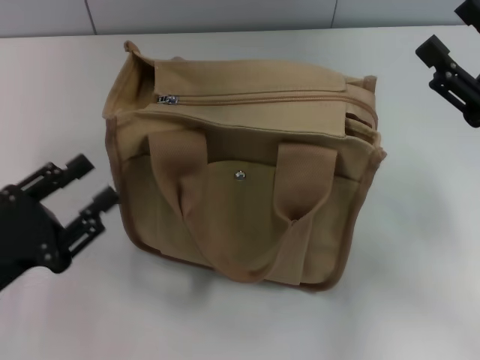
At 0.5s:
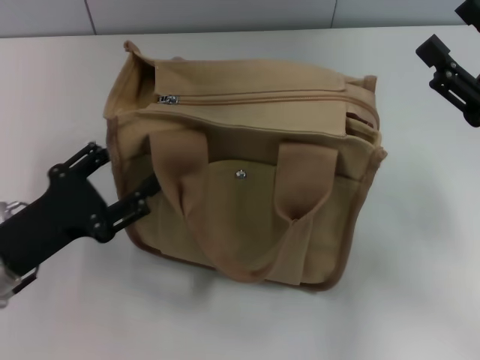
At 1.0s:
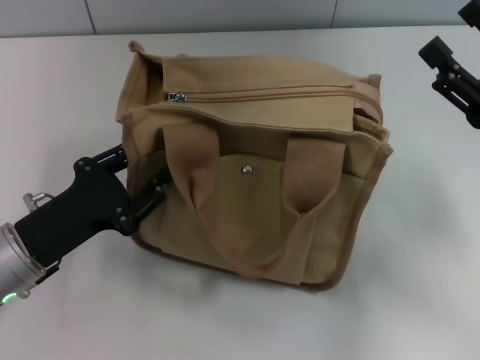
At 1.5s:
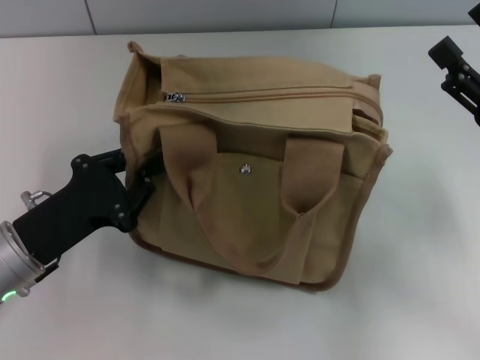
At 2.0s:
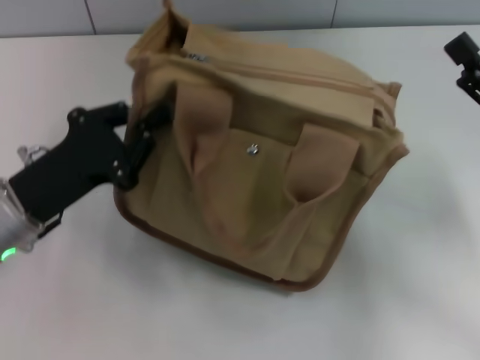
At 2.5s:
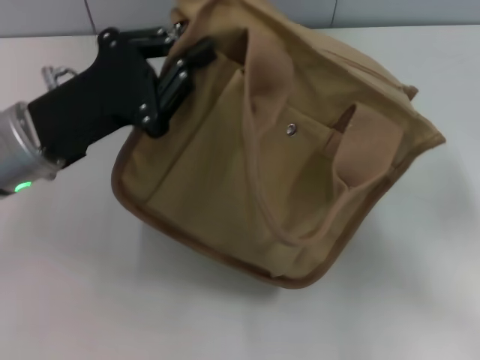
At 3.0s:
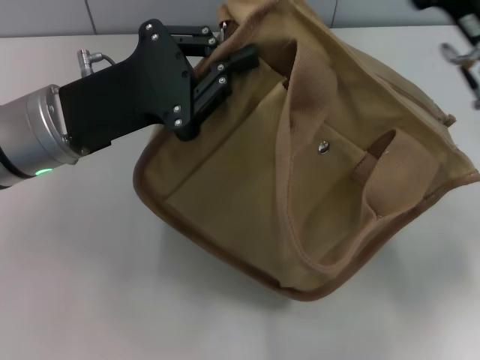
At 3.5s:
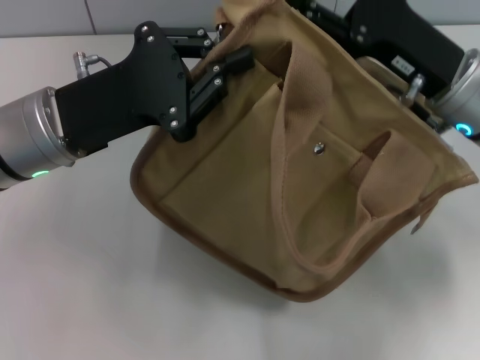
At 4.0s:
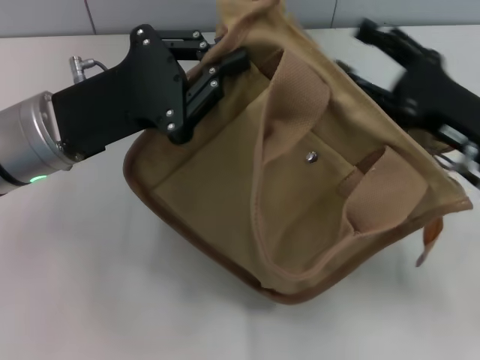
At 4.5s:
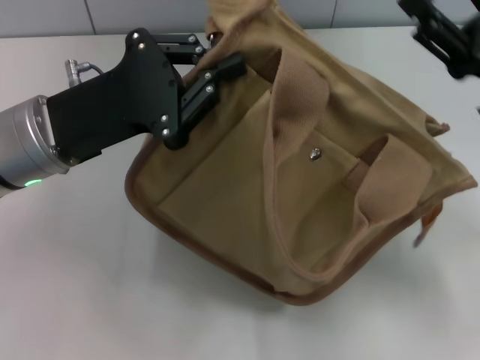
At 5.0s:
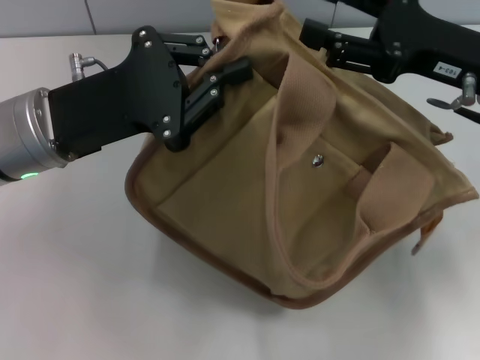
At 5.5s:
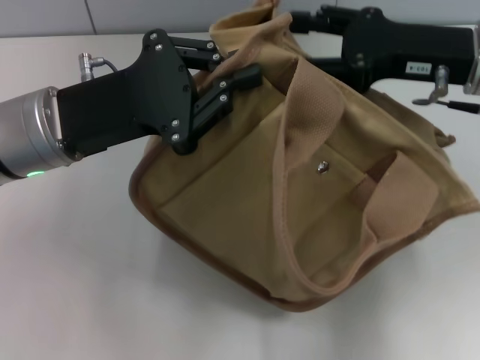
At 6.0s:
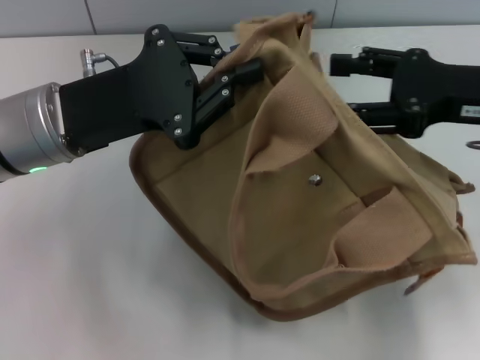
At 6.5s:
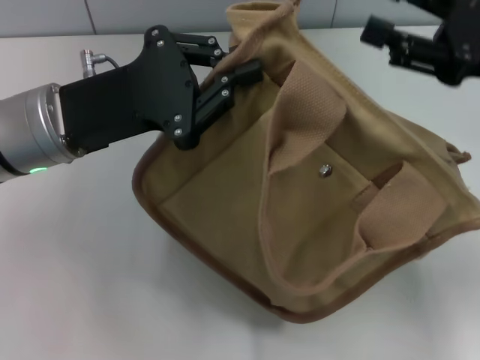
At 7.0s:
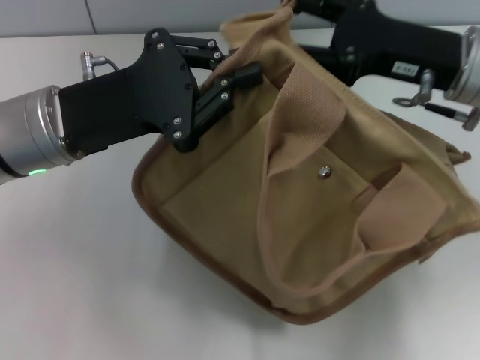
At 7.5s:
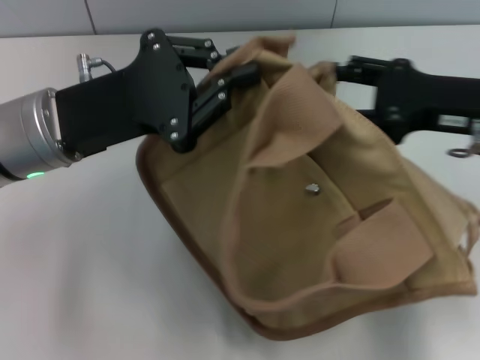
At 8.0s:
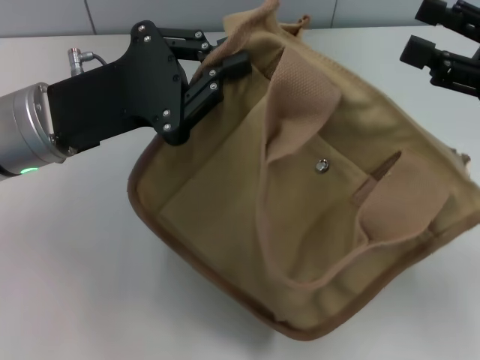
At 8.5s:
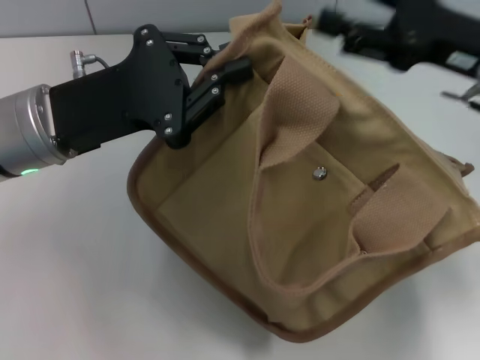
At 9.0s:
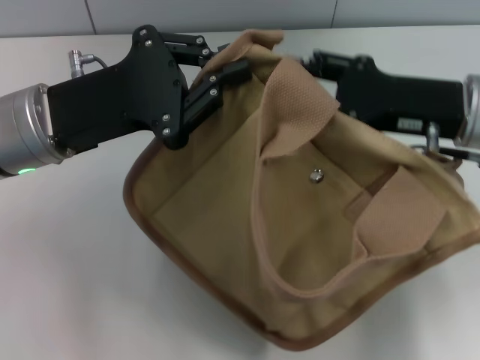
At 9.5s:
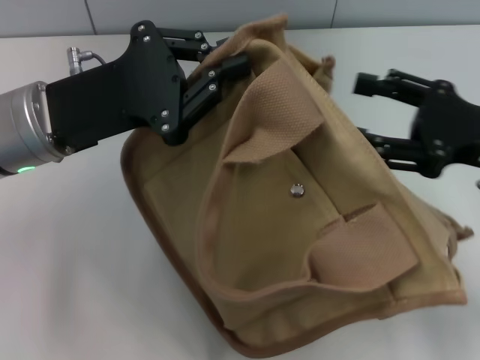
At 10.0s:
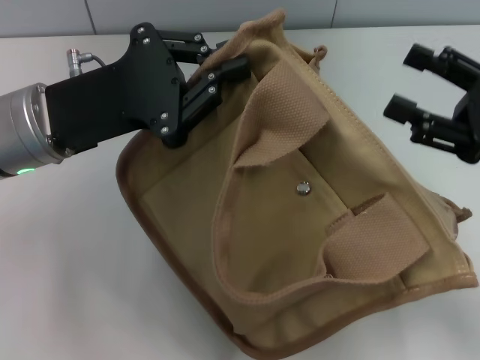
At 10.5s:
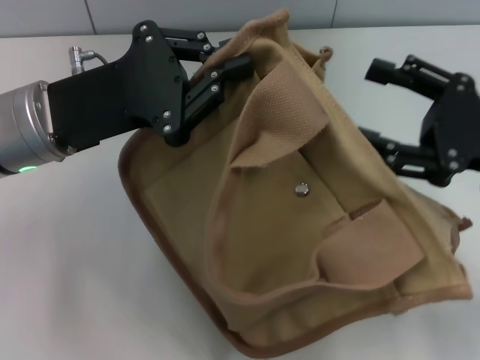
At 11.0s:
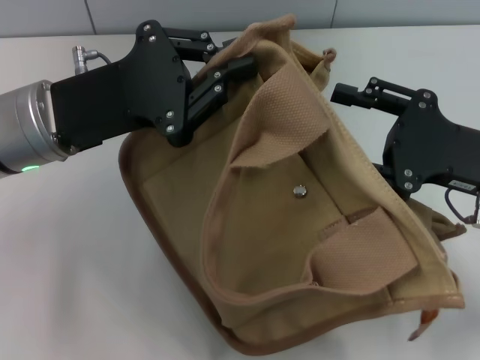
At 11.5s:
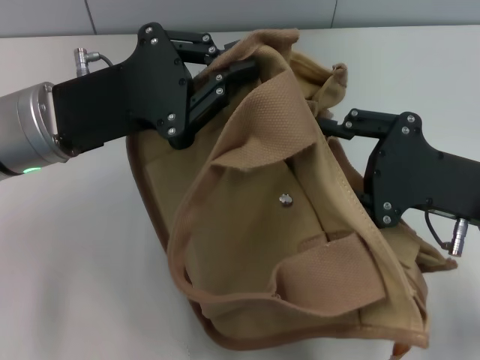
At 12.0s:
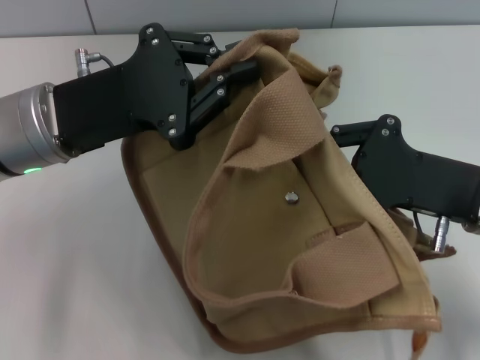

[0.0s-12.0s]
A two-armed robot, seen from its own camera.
0.0s to 2.0s: The left gripper heads forward and to the right, covering some 10 cm, and opens, then closes once more.
2.0s to 4.0s: The right gripper shifts roughly 5 cm to the left. Meanwhile the left gripper moves upward and forward, approximately 10 cm.
4.0s to 6.0s: The right gripper heads upward, covering about 10 cm.
6.0s to 8.0s: The right gripper changes place by roughly 5 cm.
8.0s to 10.0s: The right gripper reaches roughly 10 cm to the left, then returns.
10.0s to 12.0s: The right gripper travels to the left by about 5 cm, and closes its fingers.

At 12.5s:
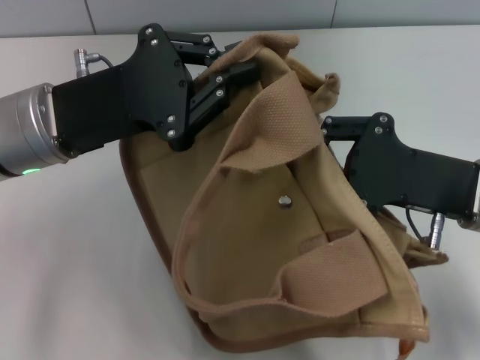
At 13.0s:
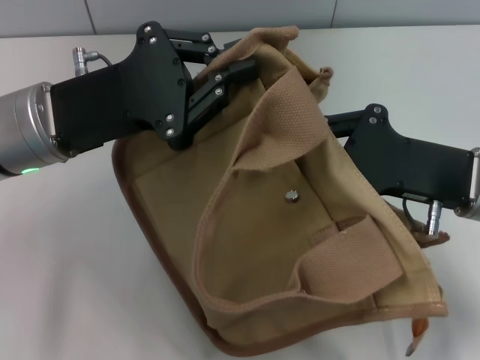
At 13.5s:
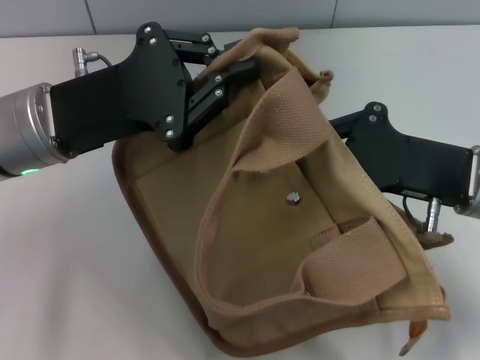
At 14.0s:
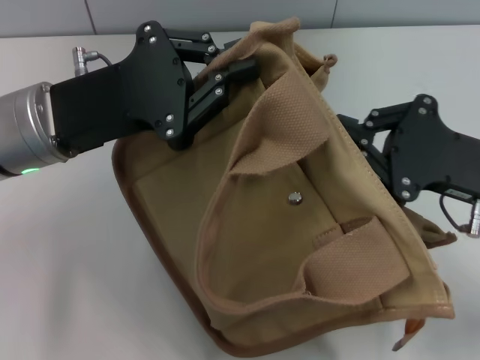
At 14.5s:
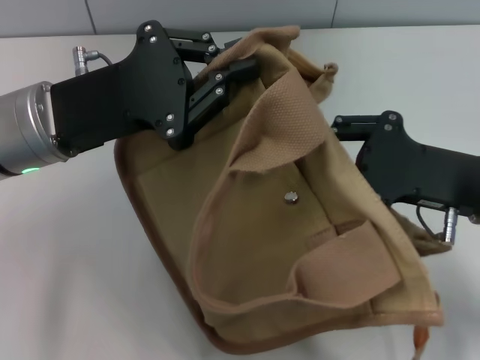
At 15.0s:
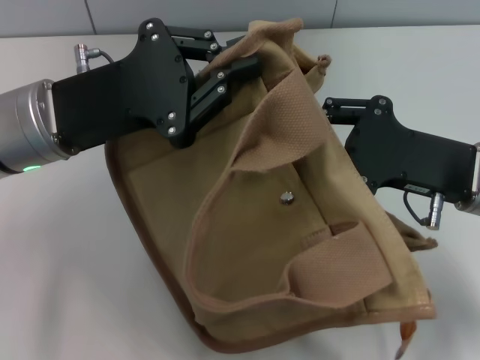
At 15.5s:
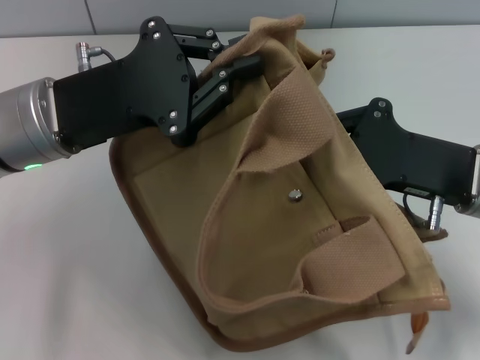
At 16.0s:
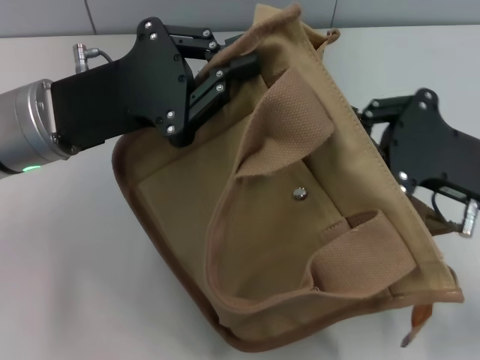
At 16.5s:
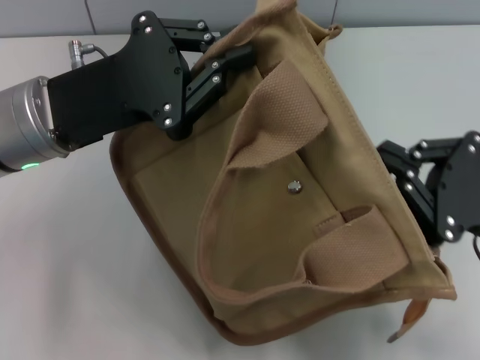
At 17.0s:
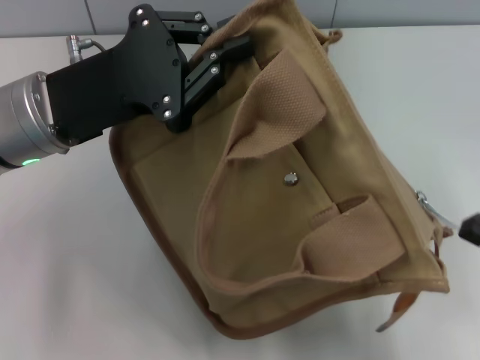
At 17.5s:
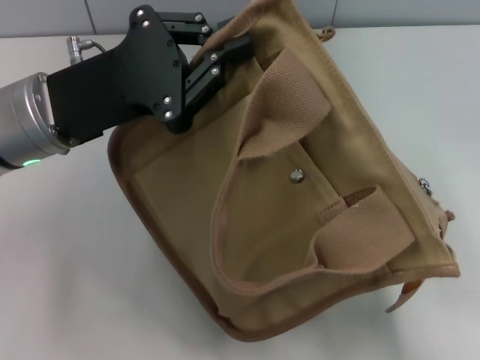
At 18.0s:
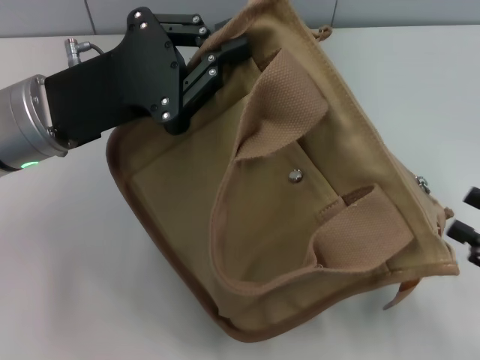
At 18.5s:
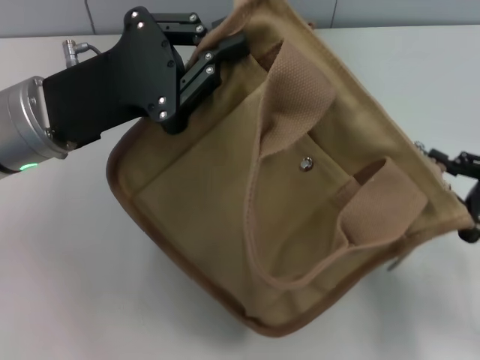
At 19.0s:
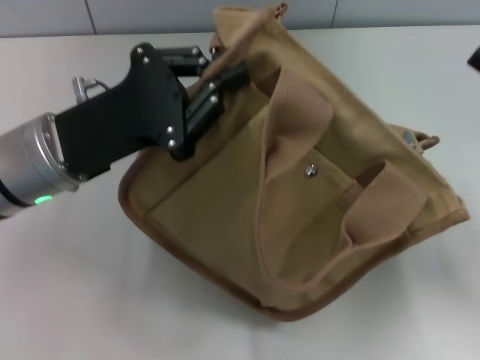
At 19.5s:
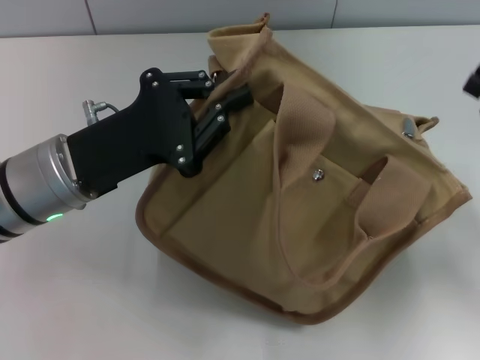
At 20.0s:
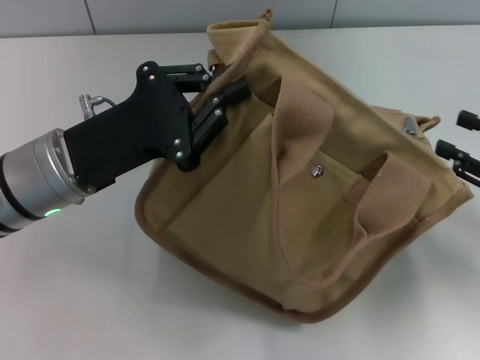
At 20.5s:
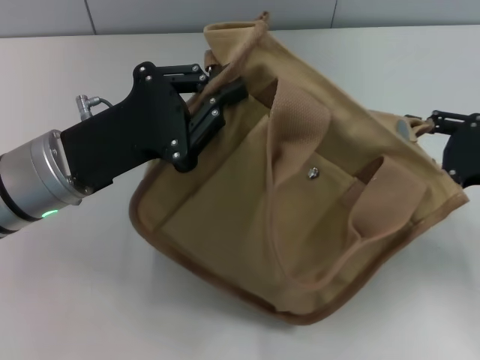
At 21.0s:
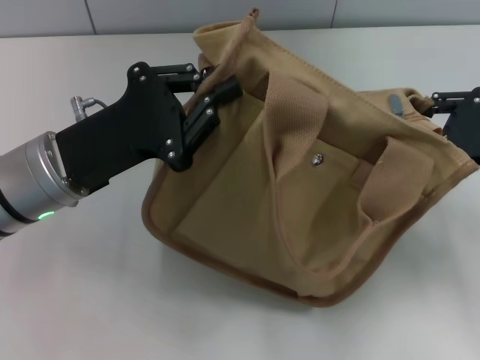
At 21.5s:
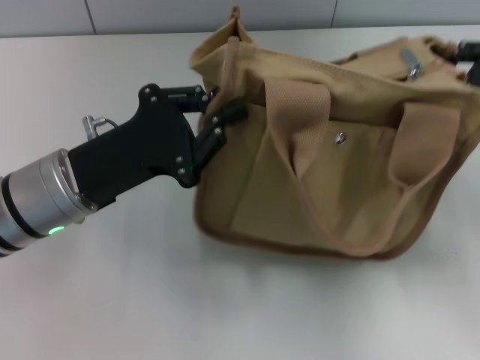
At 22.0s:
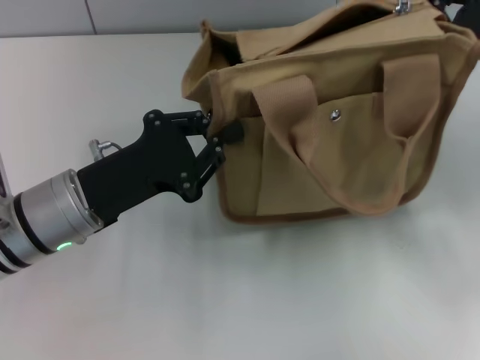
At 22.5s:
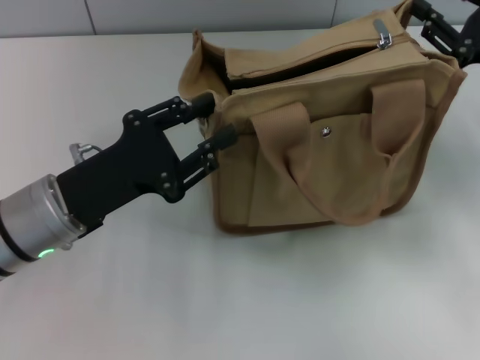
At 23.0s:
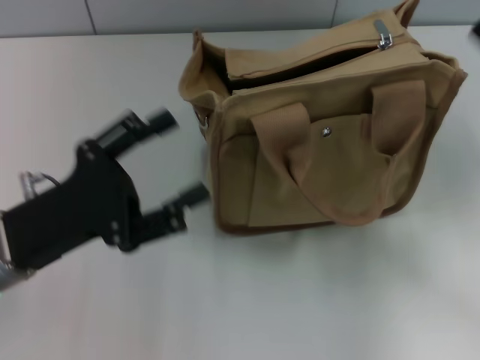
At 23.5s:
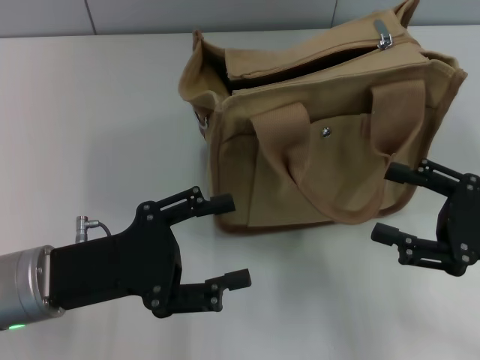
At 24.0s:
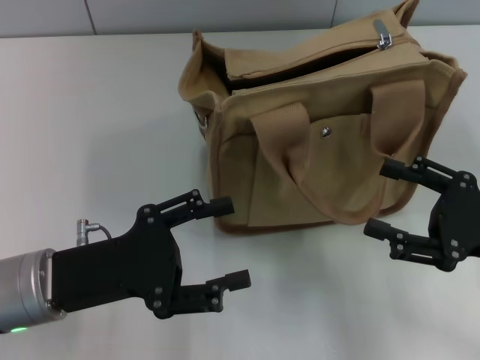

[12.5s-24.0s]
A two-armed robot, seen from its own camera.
Step, 12.5s to 16.5s: Pull open the zipper with your right hand.
Step, 17.5s to 22.5s: Grab the bag with your left hand.
12.5s to 14.5s: The grippers move only a little.
14.5s to 16.5s: The right gripper shifts about 5 cm backward, and opens, then closes once more.
16.5s to 18.5s: The right gripper moves to the right, some 5 cm, and opens its fingers.
18.5s to 20.0s: The right gripper changes place by roughly 5 cm, and closes, then opens again.
20.0s to 22.0s: The right gripper travels forward and to the left by approximately 10 cm.
22.0s to 24.0s: The left gripper shifts about 5 cm backward, and opens its fingers, while the right gripper moves backward and downward, about 15 cm, and opens its fingers.
